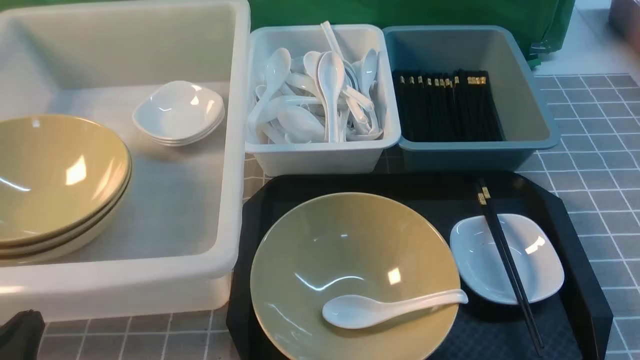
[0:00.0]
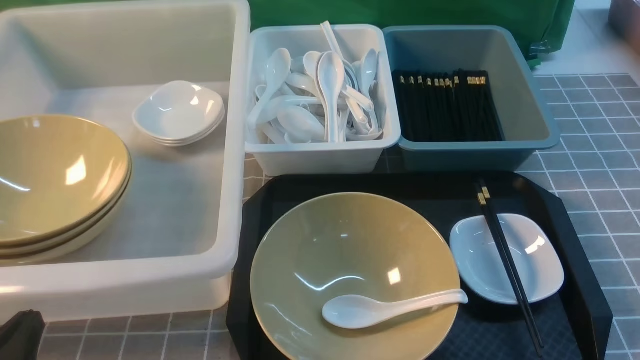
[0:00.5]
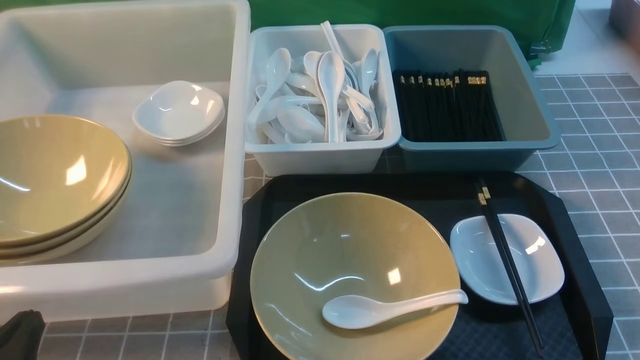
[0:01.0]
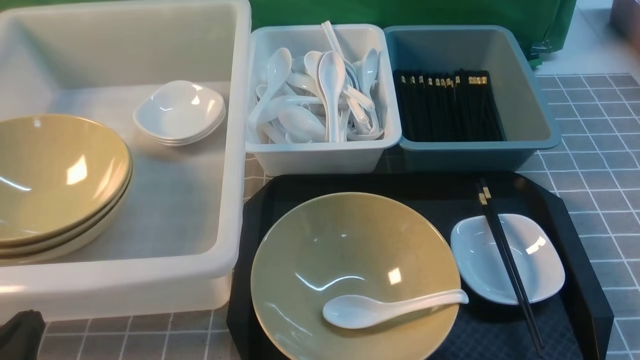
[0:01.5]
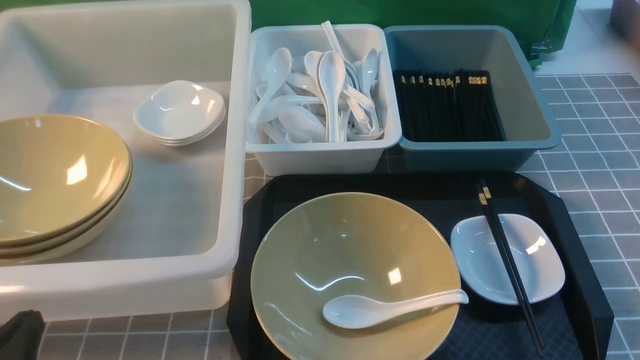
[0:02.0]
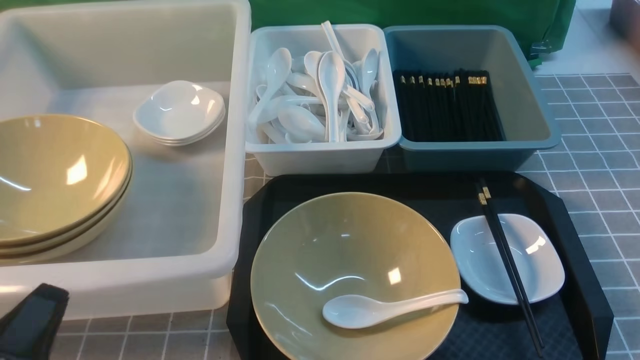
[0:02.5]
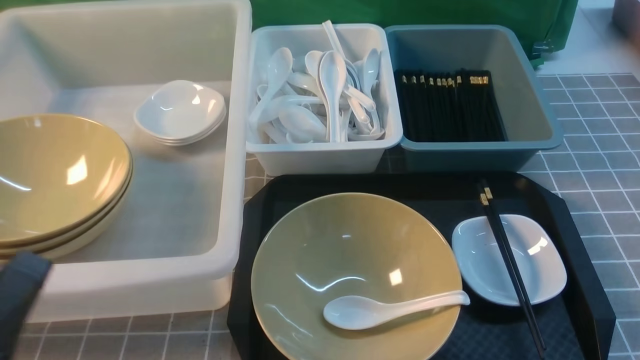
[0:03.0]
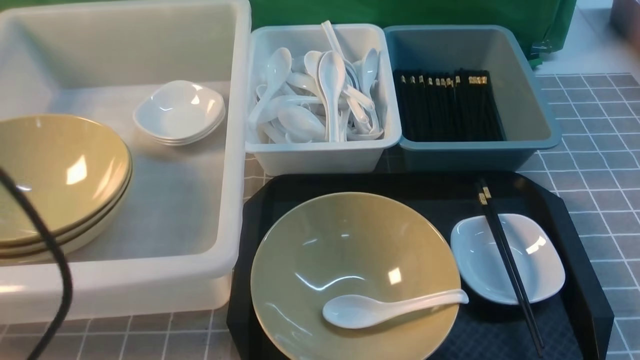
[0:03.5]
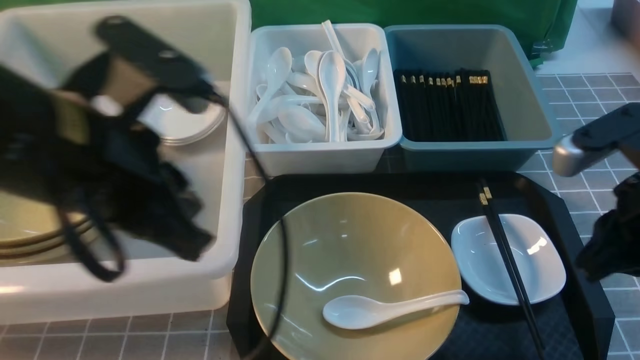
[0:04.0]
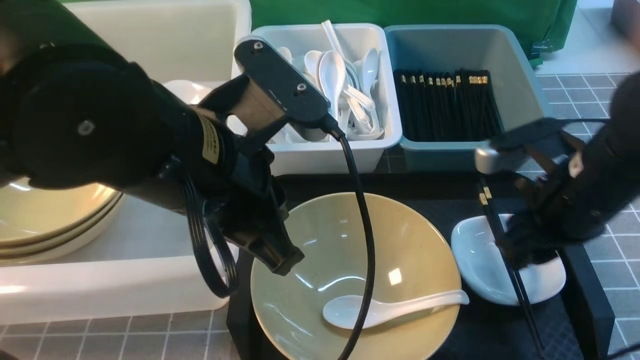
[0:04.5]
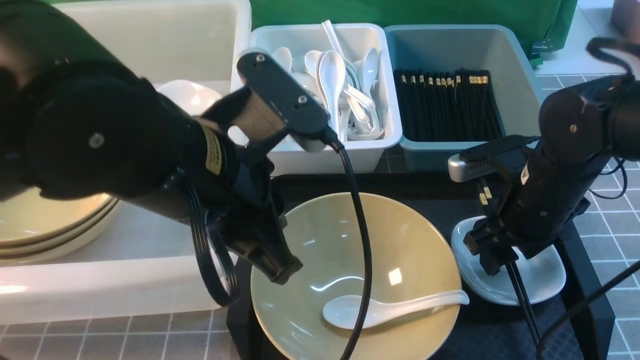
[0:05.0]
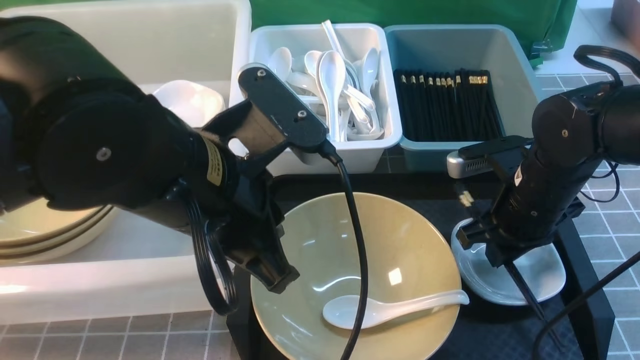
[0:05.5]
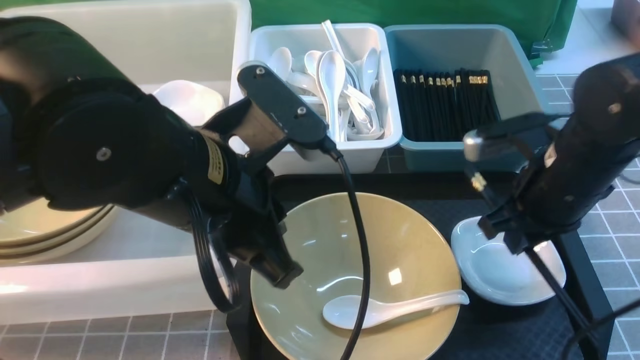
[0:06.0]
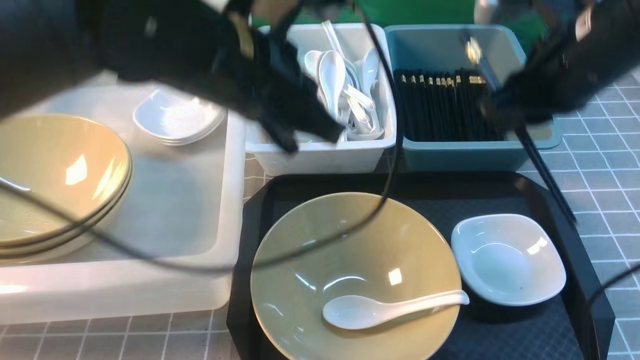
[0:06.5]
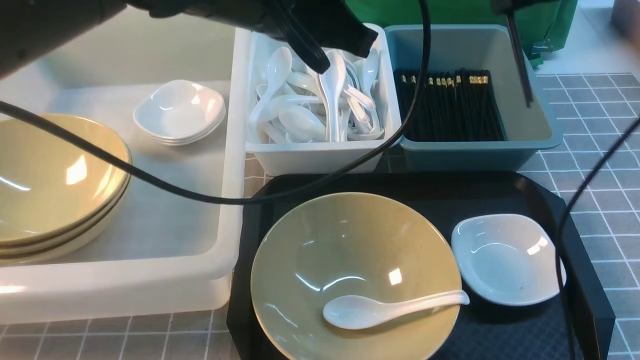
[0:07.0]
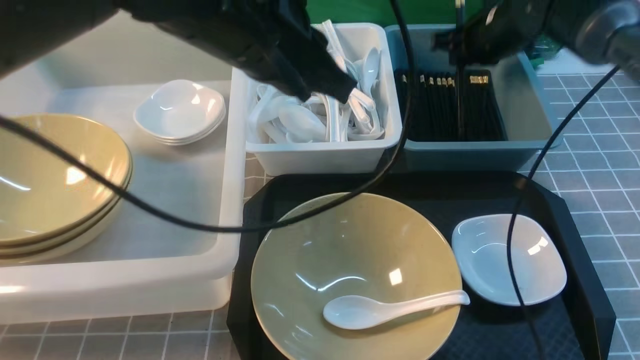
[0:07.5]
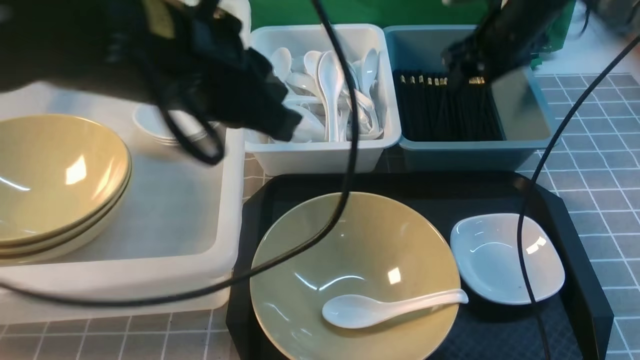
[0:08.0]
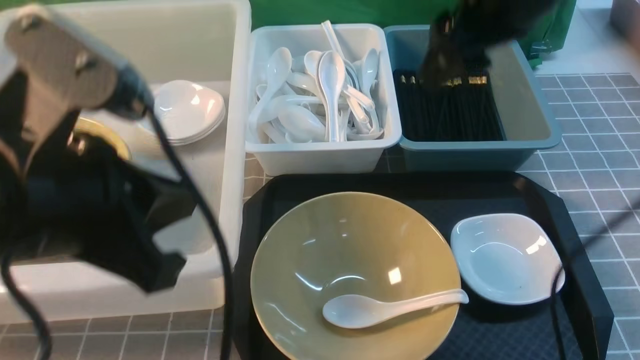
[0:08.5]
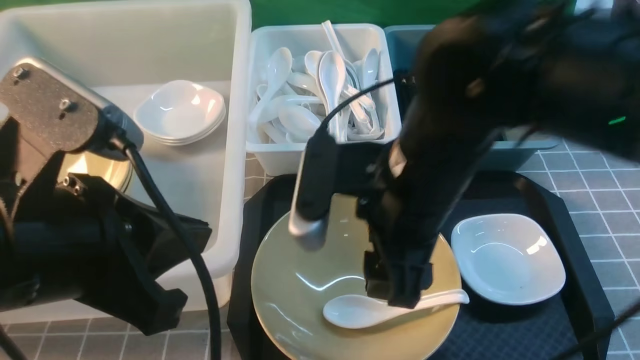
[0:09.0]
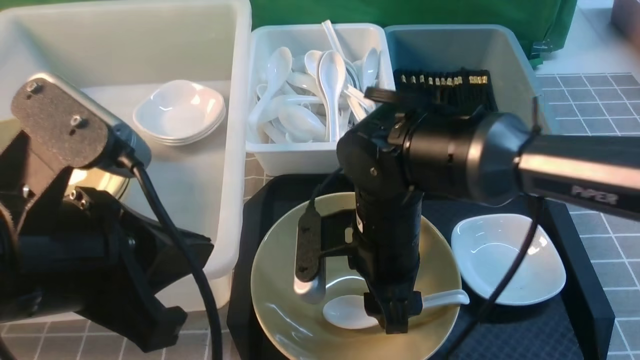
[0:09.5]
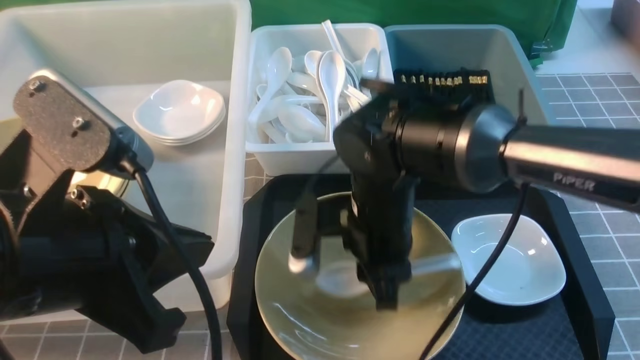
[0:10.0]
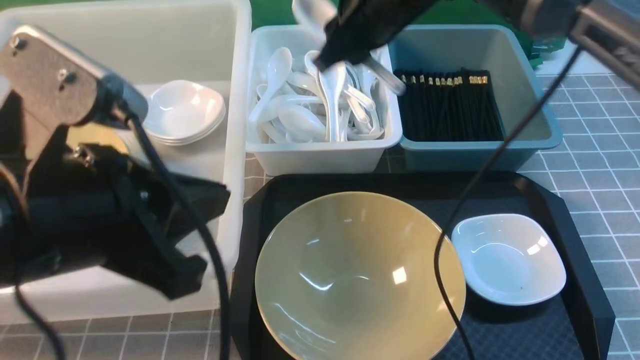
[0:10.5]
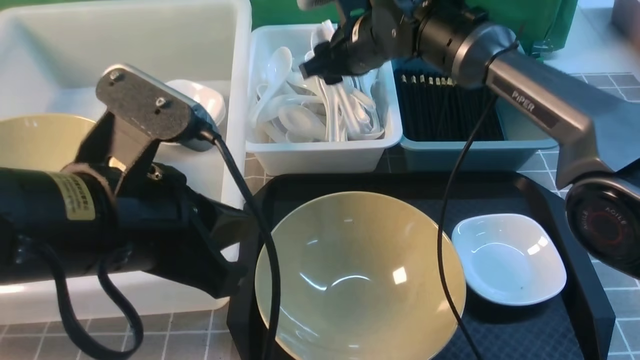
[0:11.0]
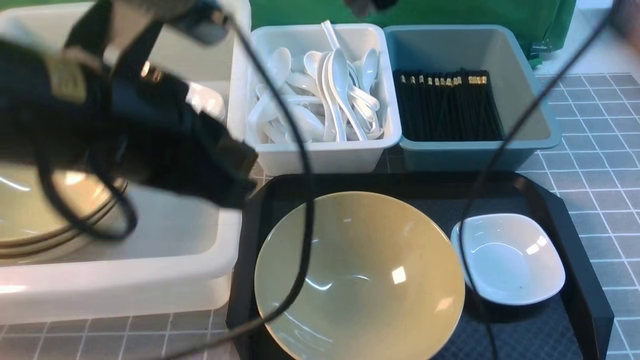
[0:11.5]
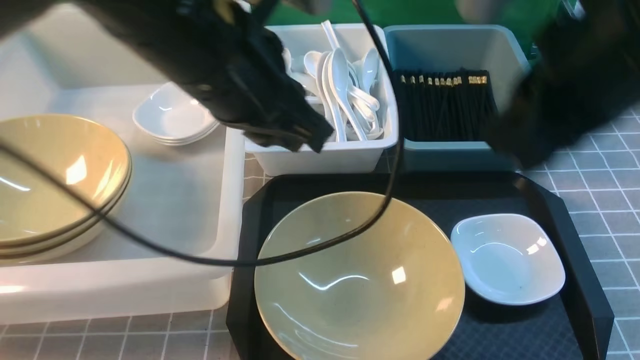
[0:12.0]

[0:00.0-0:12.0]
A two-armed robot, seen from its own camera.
Task of the whole recording: on grey table put chopsticks spoon bowls plates into blue grey white boxes.
Step, 0.0 to 5.5 s: use the right arm to grab the chopsticks.
Step, 6.0 to 7.5 s: use the right arm to put the chopsticks into the small storage box on the right.
Step, 8.5 to 9.5 s: use the right arm to grab the soup spoon in the middle.
Step, 10.0 to 11.0 s: use the right arm to put the soup spoon into the small storage box in the middle.
0.0 to 2.0 s: The two grippers keep their place.
2.0 to 4.0 s: The left gripper moves upward, forward and to the right, approximately 25 cm. Meanwhile the right gripper travels forward, upward and to the left by approximately 20 cm, and closes up.
4.0 to 6.0 s: The right gripper shifts roughly 10 cm forward, and opens and closes again, while the left gripper heads to the right, covering roughly 5 cm.
6.0 to 8.0 s: The right gripper goes roughly 20 cm forward, and opens up; the left gripper travels upward by about 5 cm, and reaches some 10 cm forward, then returns.
8.0 to 10.0 s: The right gripper moves backward, to the left and downward, roughly 25 cm, and closes. The left gripper is displaced backward and to the left by about 10 cm.
10.0 to 12.0 s: The right gripper moves upward and to the right, about 20 cm, goes forward and returns, roughly 20 cm each way, and closes up; the left gripper is displaced forward and to the right by some 15 cm.

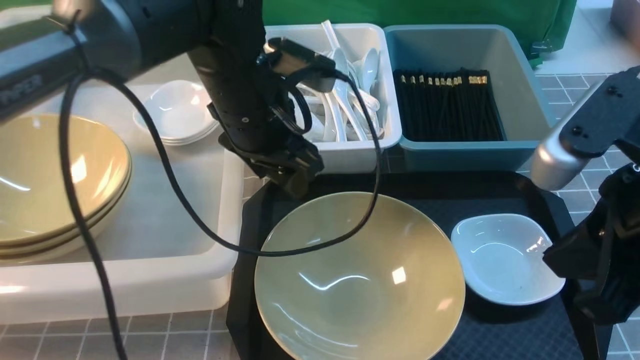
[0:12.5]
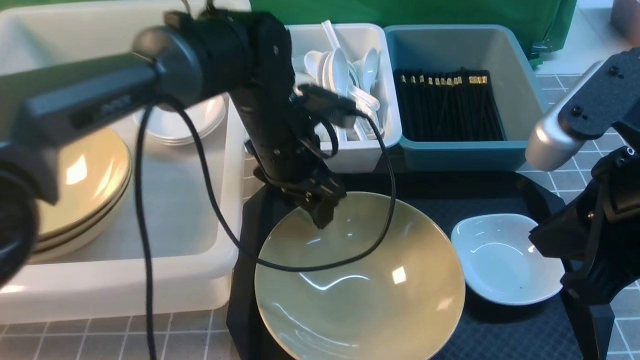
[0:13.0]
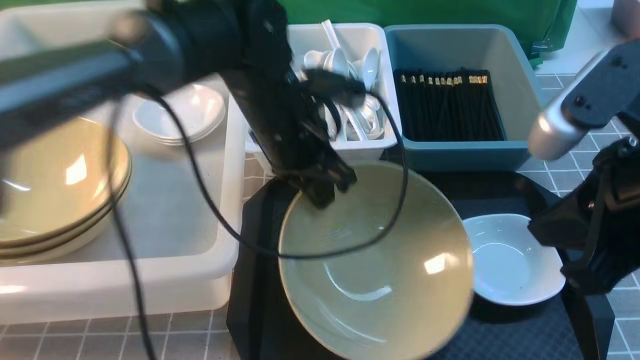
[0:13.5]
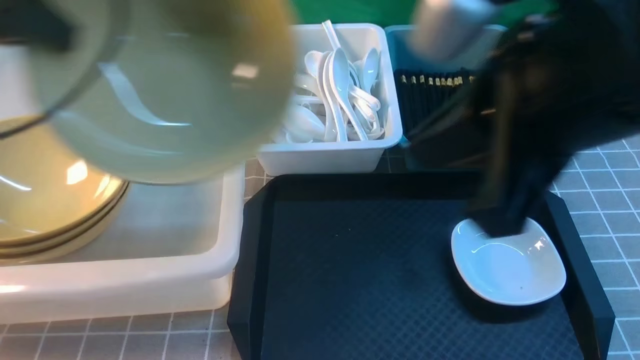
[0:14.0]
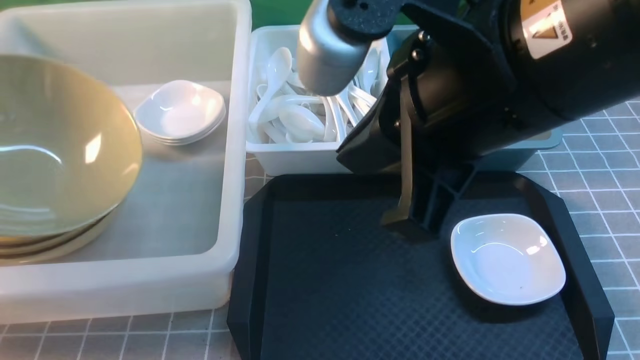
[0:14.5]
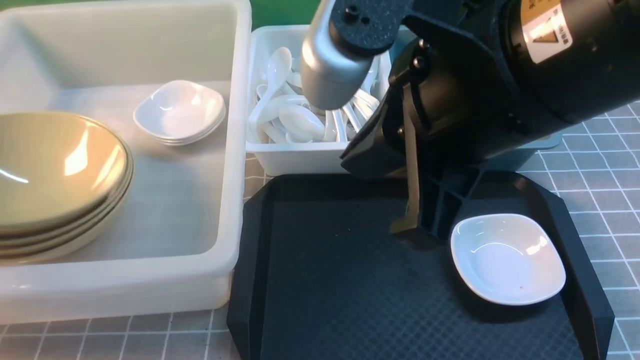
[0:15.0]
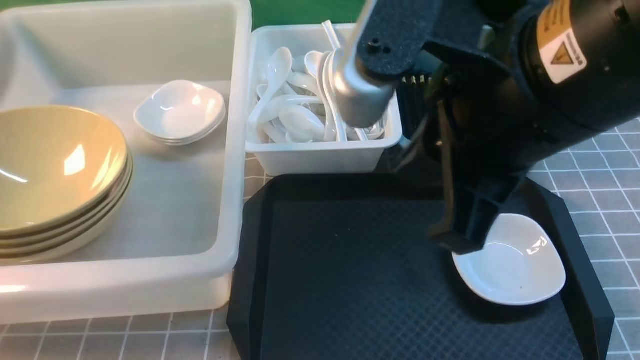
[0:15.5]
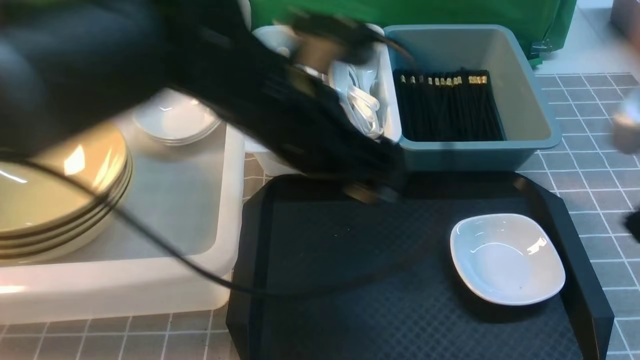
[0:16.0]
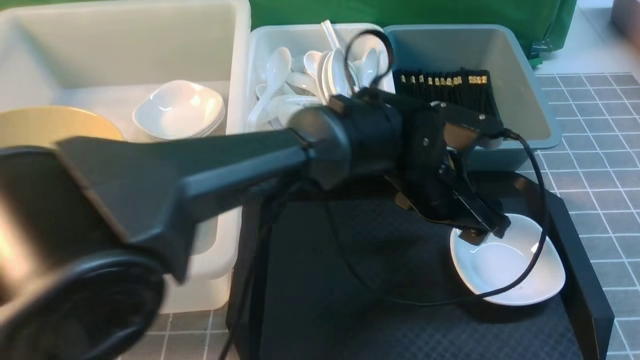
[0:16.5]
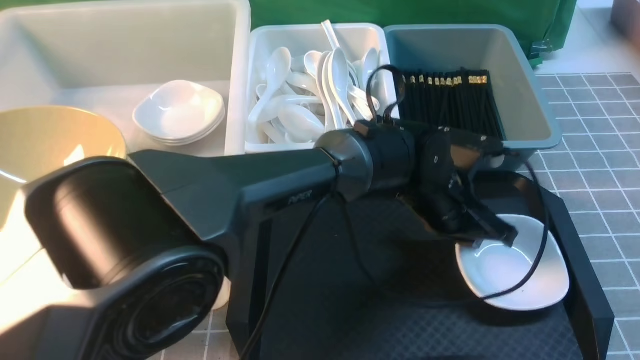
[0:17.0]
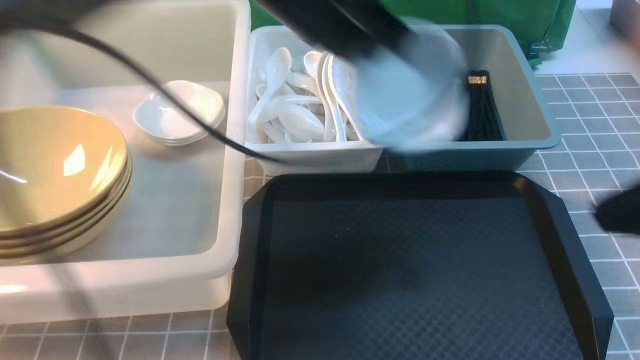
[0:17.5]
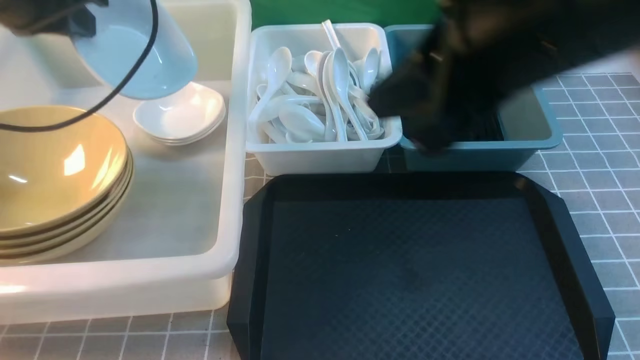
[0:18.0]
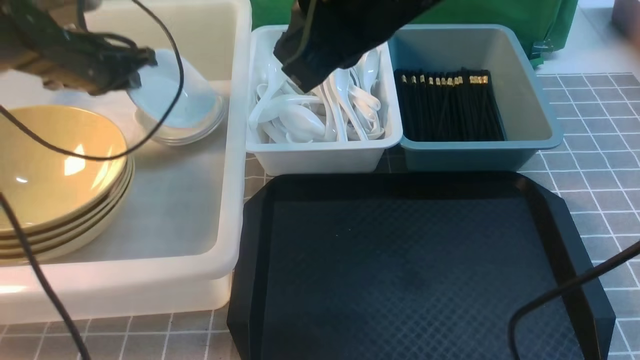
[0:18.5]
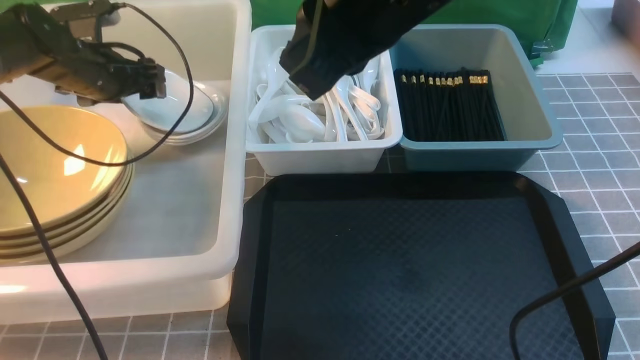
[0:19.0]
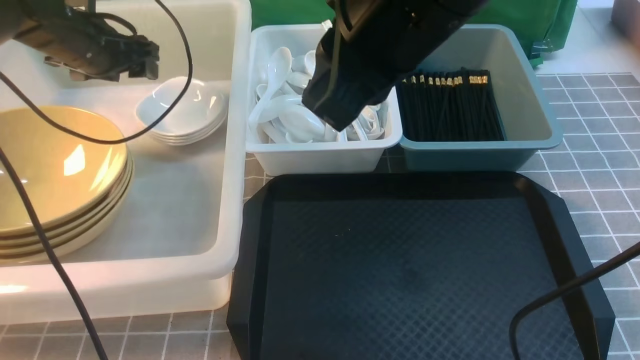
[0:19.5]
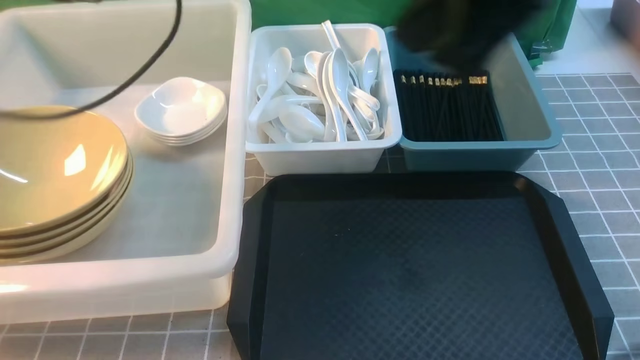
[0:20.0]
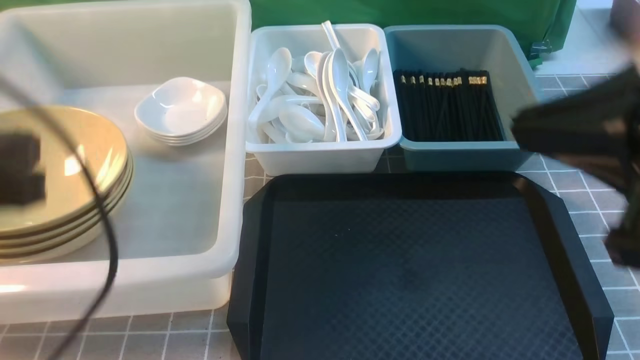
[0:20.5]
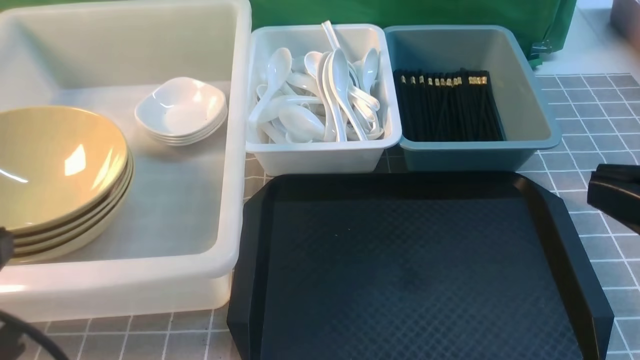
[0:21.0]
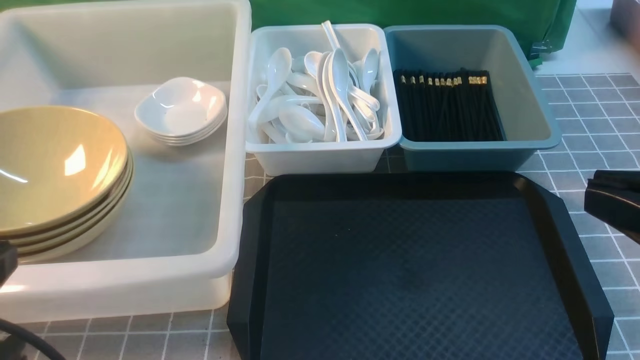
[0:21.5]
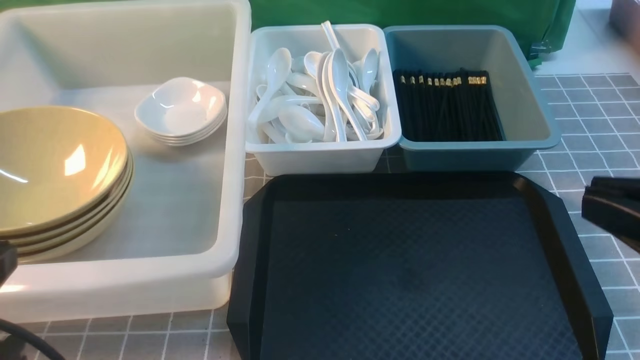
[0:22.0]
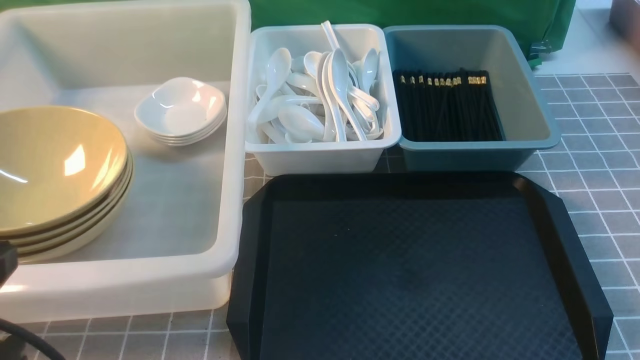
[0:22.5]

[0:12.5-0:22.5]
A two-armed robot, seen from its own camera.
Task of the whole recording: on grey table put chopsticks spoon bowls plates into blue grey white boxes.
Step, 14.0 to 15.0 s: use the left arm to put the noodle bowl into the large storage box on the left.
Step, 15.5 to 17.0 s: use the left arm to grab the plate.
Step, 17.5 to 19.0 s: use the right arm to put the plate into the large storage box on the left.
12.5 to 14.5 s: The left gripper moves to the left, some 35 cm, and closes up, while the right gripper is displaced to the left and upward by about 15 cm.
14.5 to 16.5 s: The left gripper goes roughly 50 cm to the right, and opens its fingers. Meanwhile the right gripper is displaced to the right and backward by some 20 cm.
16.5 to 18.5 s: The left gripper goes approximately 40 cm to the left, and closes its fingers, while the right gripper goes about 30 cm to the left and forward.
18.5 to 20.5 s: The left gripper heads backward, covering about 30 cm, and opens, then closes once more. Meanwhile the right gripper is displaced to the right and backward by about 20 cm.
20.5 to 22.5 s: The left gripper shifts about 10 cm backward and downward; the right gripper shifts roughly 20 cm downward, to the right and backward.
